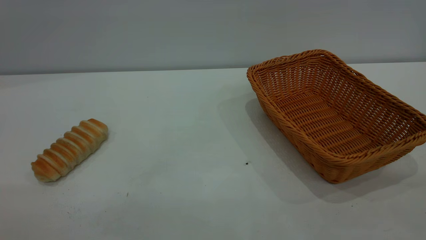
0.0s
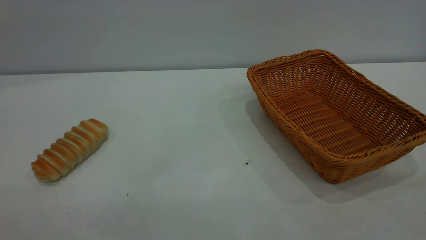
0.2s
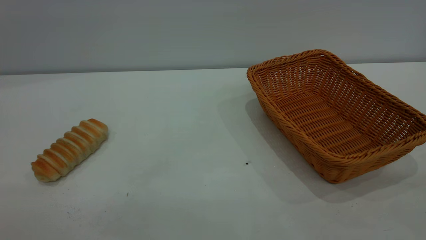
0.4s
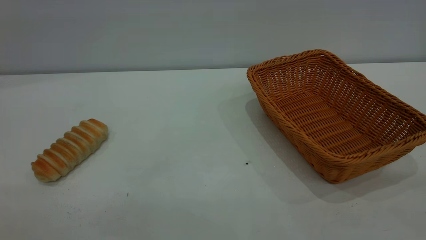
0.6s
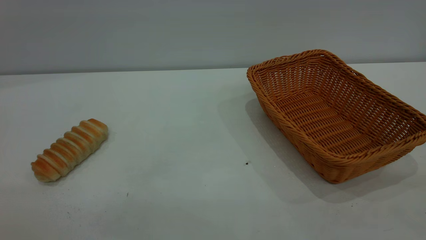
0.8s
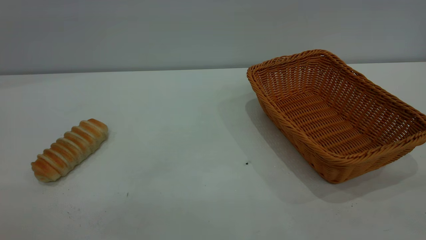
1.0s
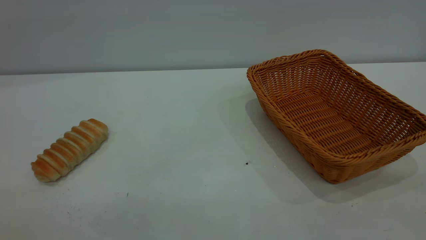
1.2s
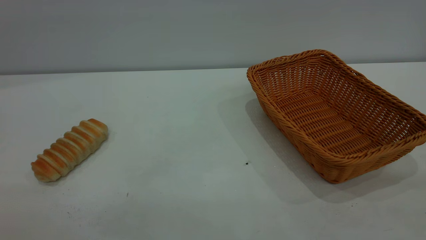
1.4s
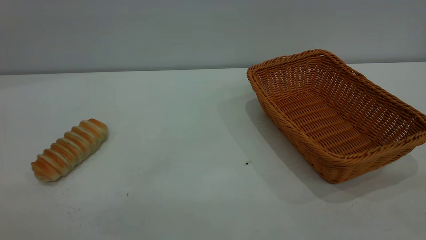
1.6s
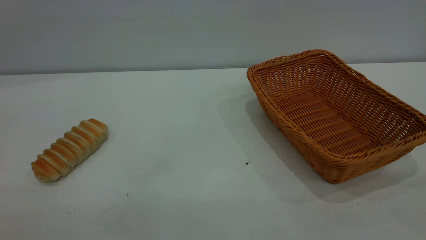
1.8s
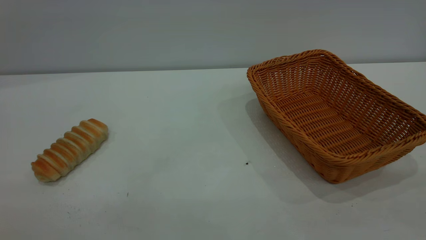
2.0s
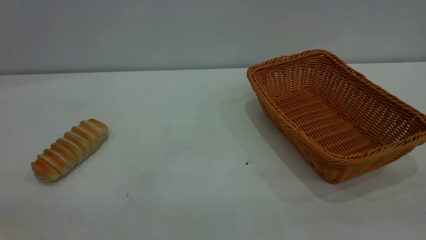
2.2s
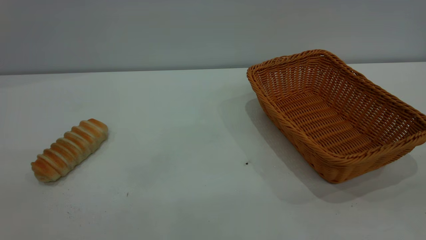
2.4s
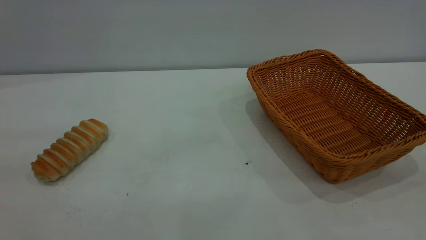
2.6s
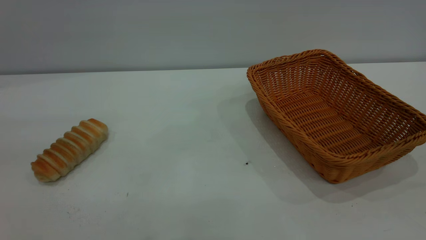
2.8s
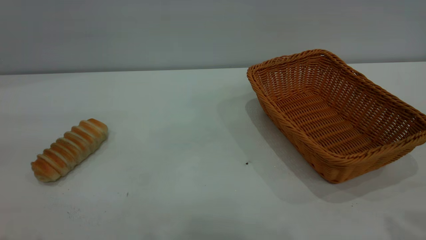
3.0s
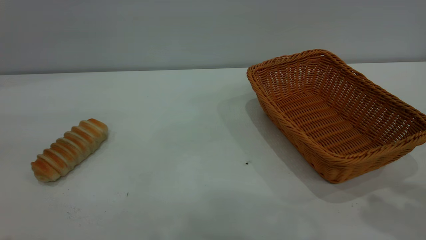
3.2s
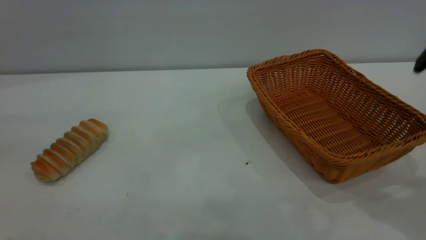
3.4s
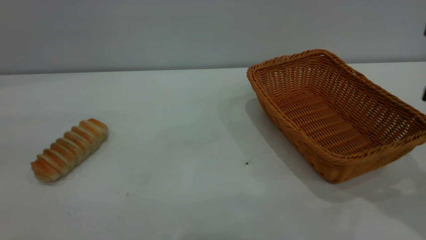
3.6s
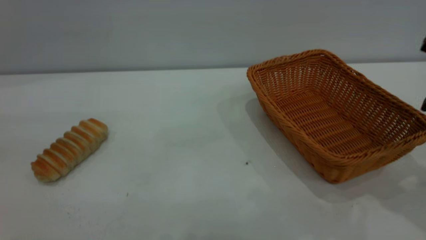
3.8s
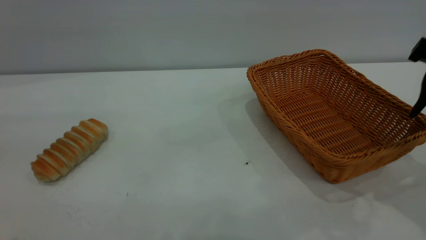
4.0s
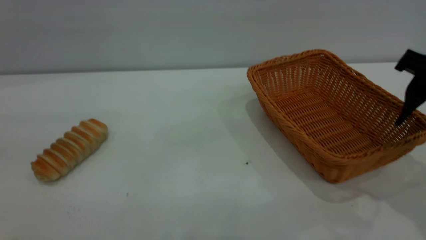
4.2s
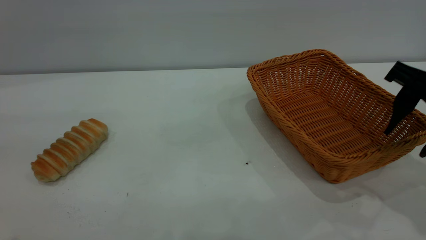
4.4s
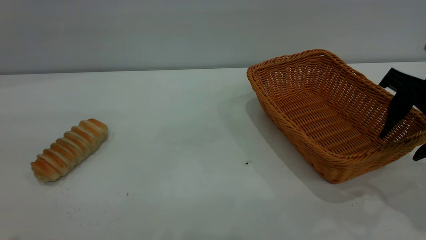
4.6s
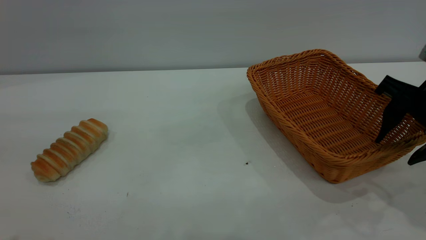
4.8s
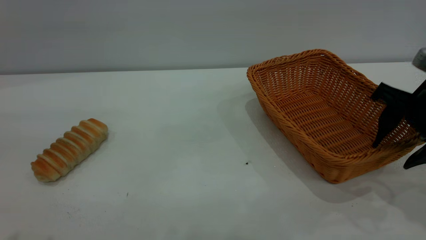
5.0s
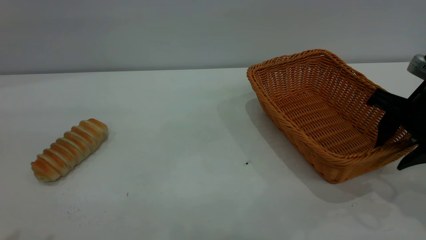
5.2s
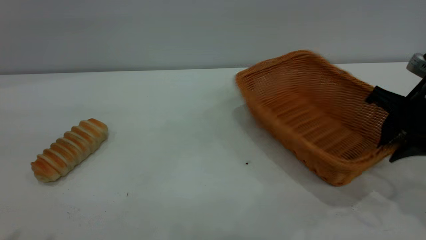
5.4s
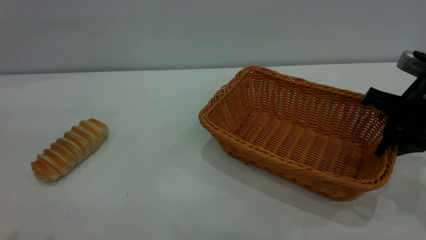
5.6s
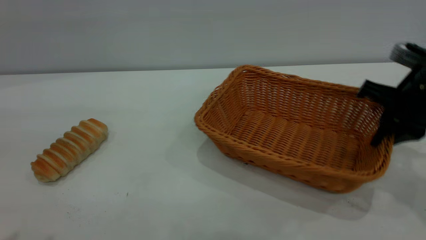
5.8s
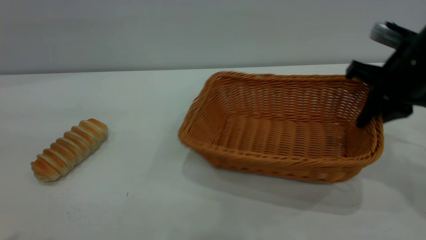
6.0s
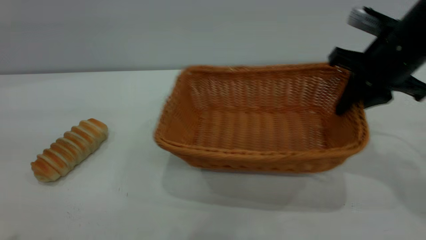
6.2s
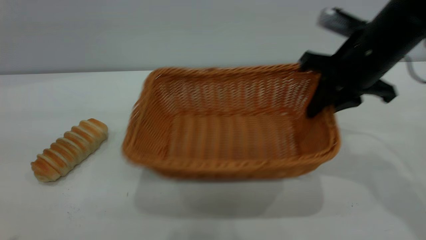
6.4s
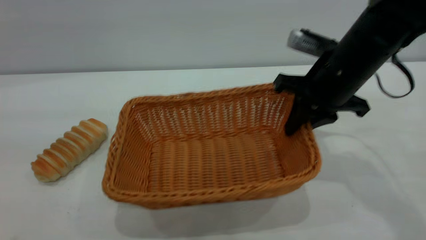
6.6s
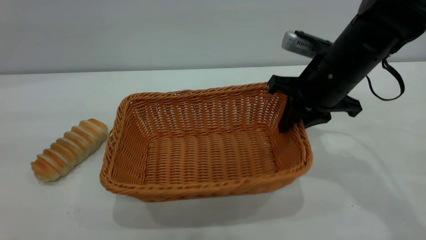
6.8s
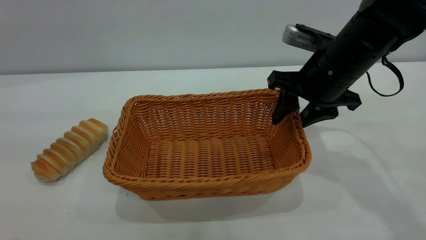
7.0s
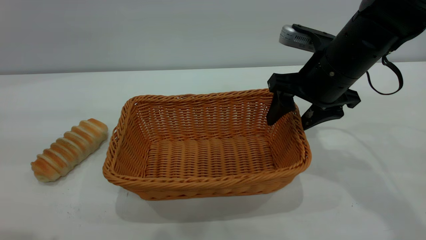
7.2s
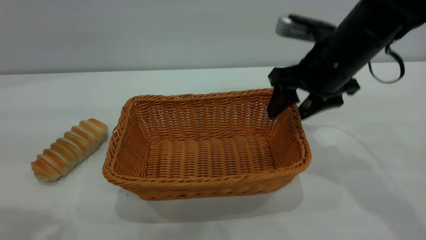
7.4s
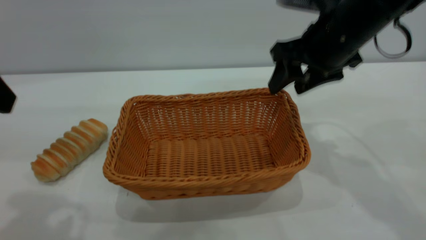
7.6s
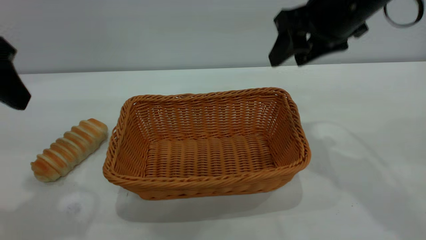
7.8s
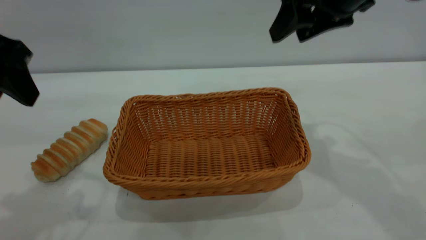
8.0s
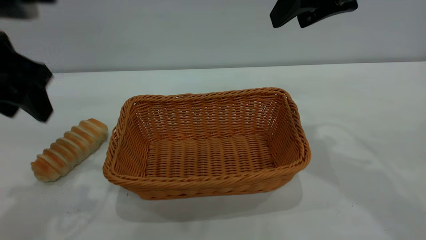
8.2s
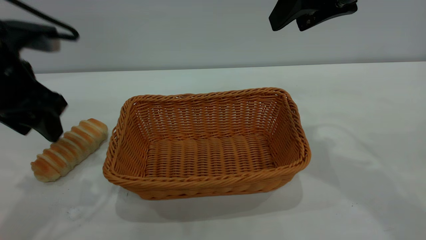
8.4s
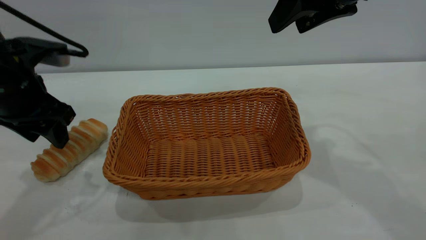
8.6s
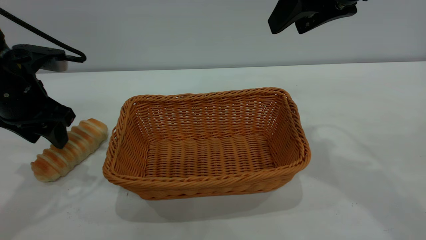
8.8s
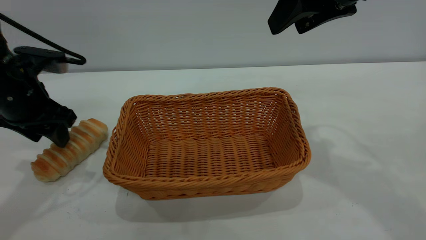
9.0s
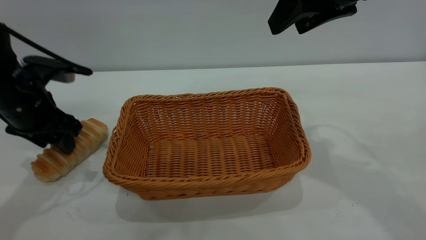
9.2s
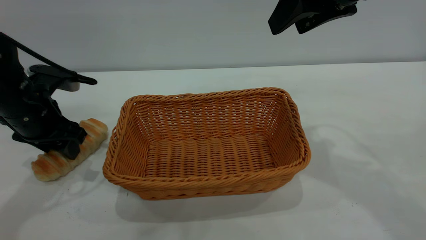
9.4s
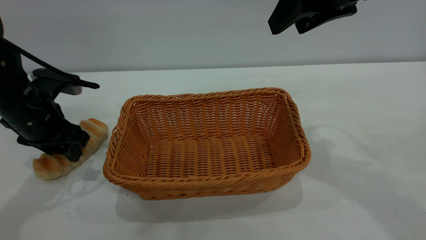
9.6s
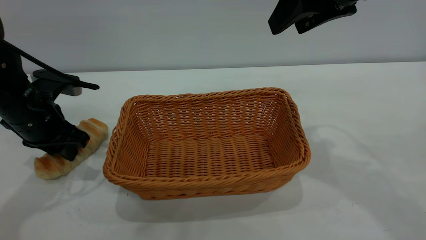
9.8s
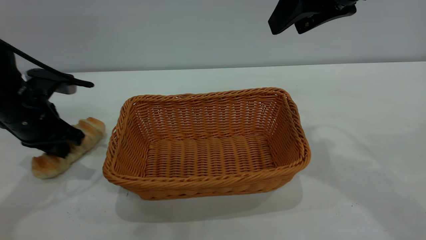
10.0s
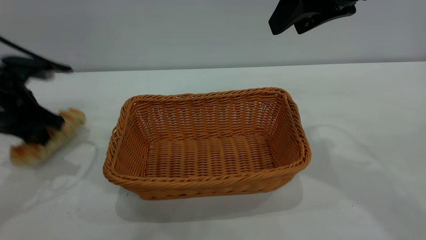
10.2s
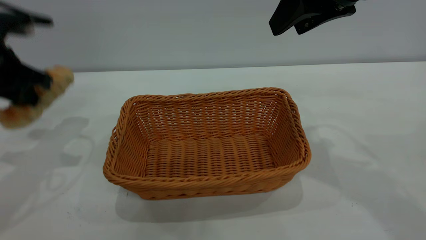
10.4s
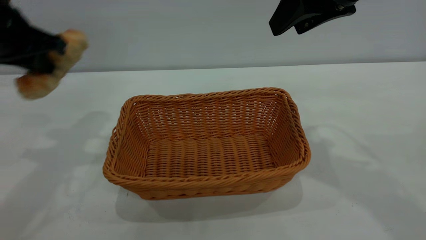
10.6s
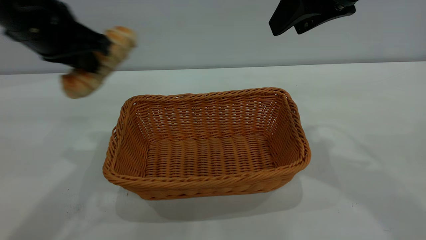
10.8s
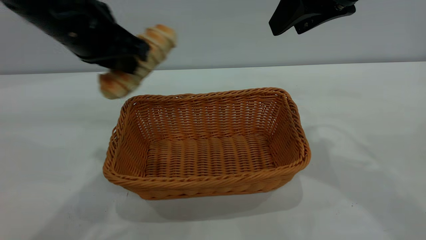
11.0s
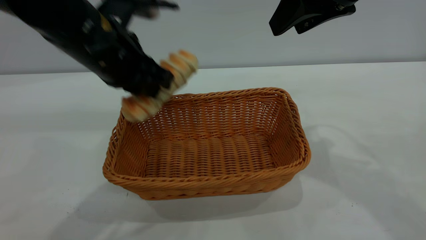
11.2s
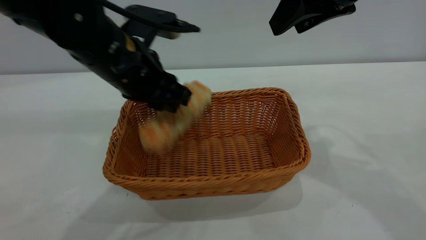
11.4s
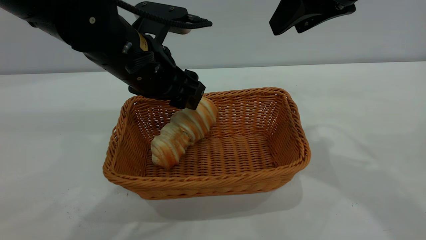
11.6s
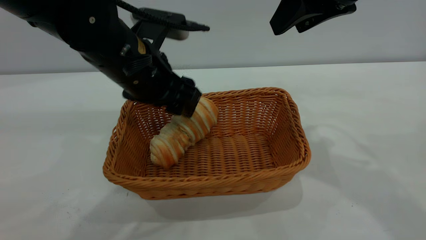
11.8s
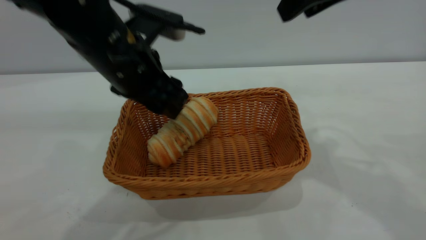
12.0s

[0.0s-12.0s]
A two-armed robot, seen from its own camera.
Task of the whole recording: One hand grasps the yellow basket and places it in the middle of the table, while the other hand picks up the long bread and puts it into the yellow basket.
Step, 0.0s to 7.6s: Move the basket to the center of view.
0.0s to 1.6s: The two grippers keep their place.
3.0s to 4.4s: The right gripper moves downward and forward, roughly 20 cm.
4.4s to 6.0s: The right gripper shifts approximately 5 cm forward, and closes its fingers.
6.0s to 7.6s: The right gripper is displaced to the left by approximately 10 cm, and opens up, while the left gripper is displaced forward and downward by about 10 cm.
7.6s to 9.0s: The left gripper goes about 20 cm downward and forward; the right gripper moves upward, some 10 cm.
9.0s to 10.4s: The left gripper moves upward, approximately 5 cm, and closes up.
10.4s to 12.0s: The left gripper heads to the right, covering some 20 cm, and opens its fingers.

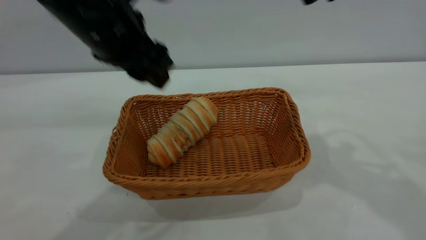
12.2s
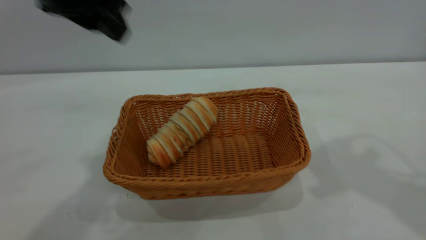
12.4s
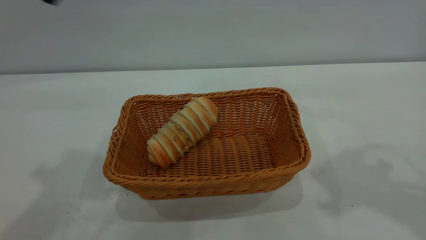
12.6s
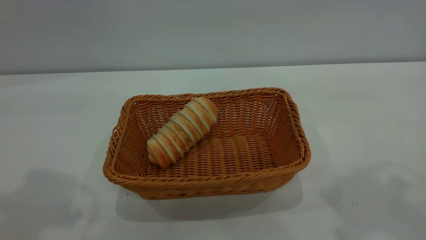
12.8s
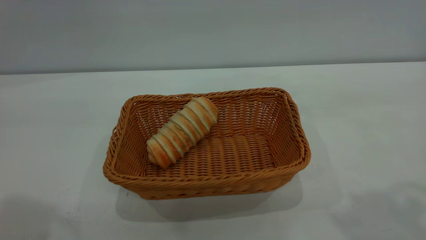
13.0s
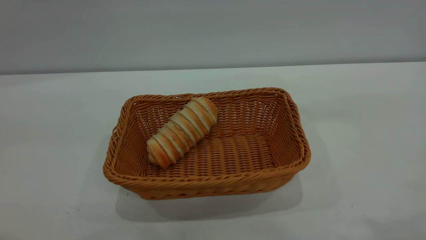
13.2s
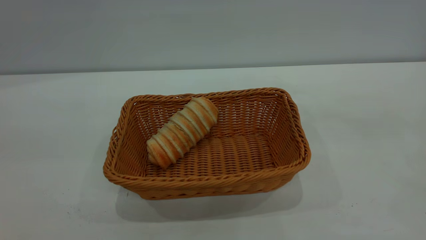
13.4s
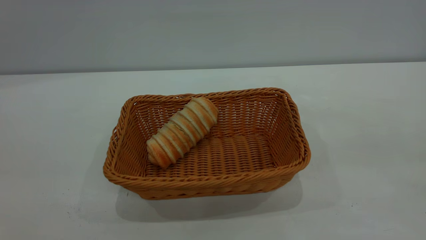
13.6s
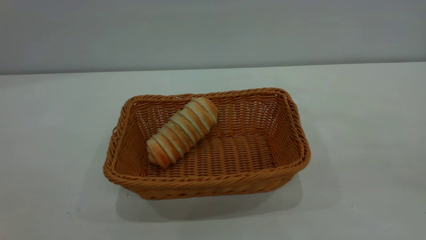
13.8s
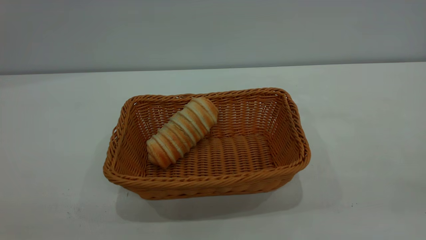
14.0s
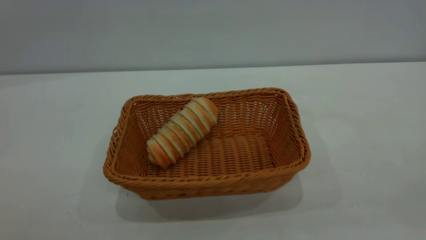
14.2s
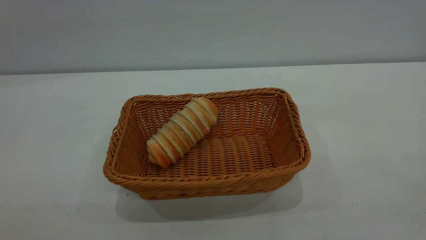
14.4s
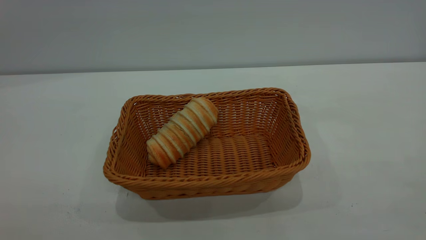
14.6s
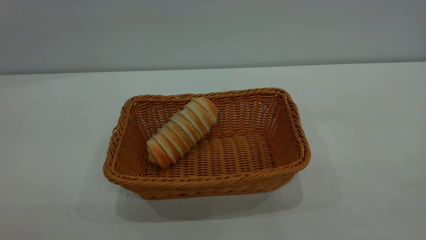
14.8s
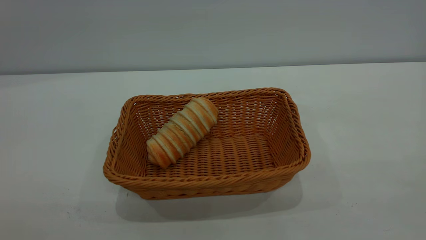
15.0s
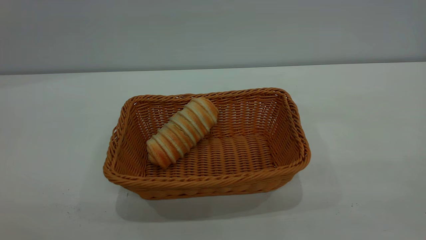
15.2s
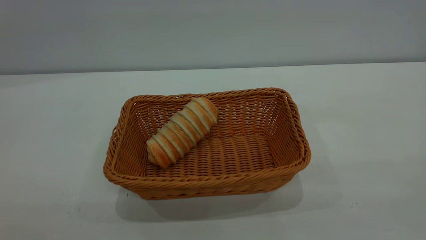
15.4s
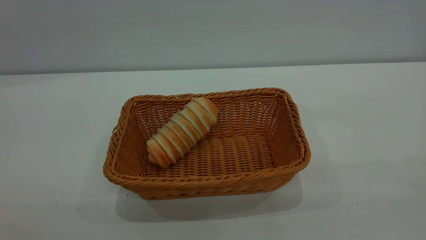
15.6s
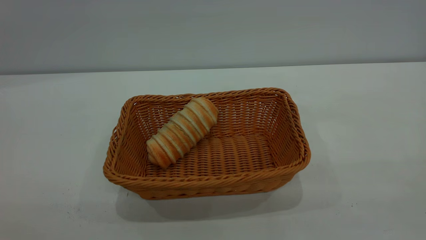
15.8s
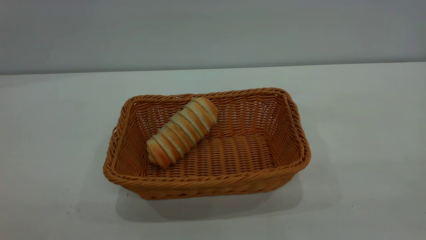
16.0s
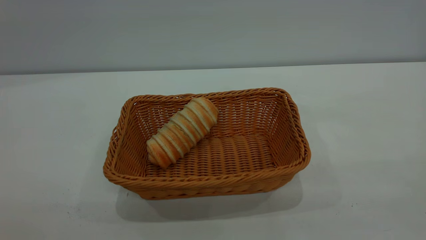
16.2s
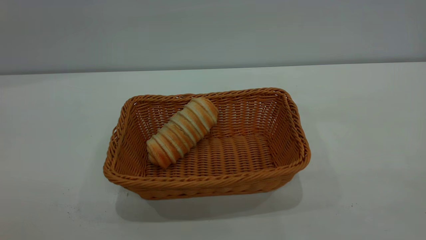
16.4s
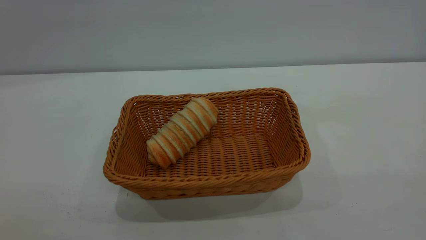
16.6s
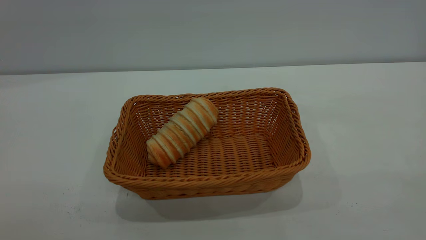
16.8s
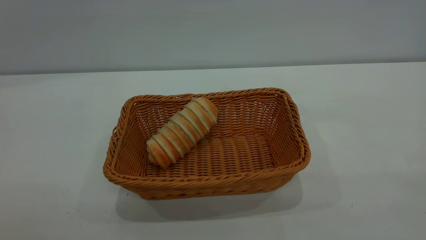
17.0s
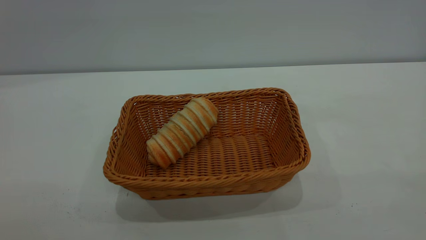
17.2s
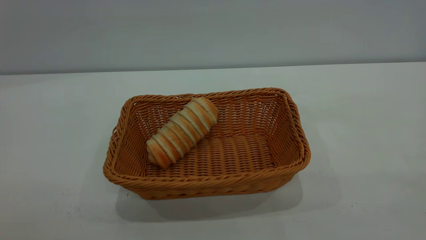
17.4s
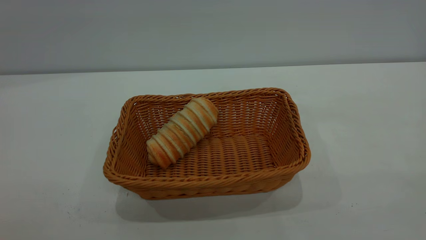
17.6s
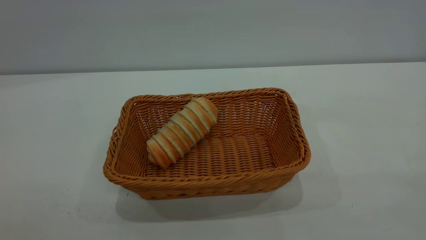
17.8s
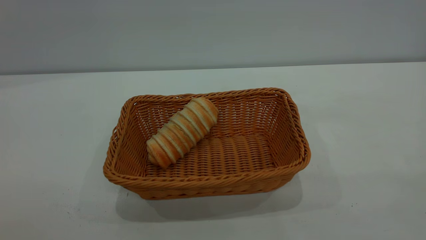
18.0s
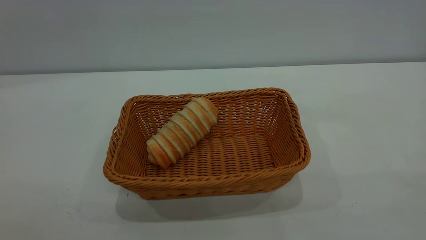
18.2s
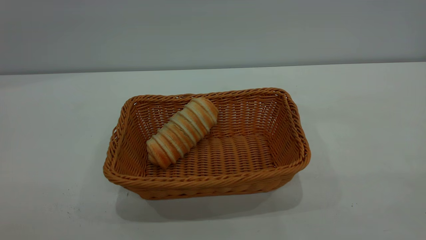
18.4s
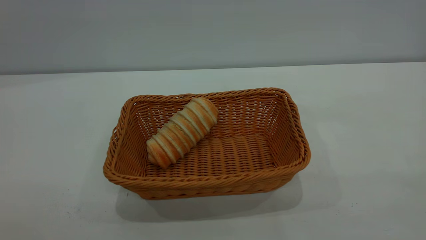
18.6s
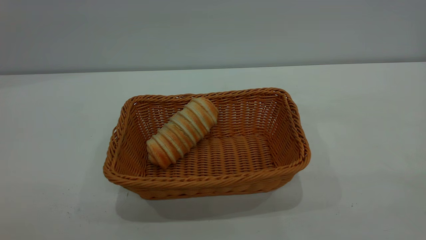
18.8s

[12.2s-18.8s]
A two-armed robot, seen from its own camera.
Task of the whole recording: One hand grasps the yellow basket and places it in the middle of the table, while the other hand picks up the long bread and puts it into the yellow basket.
12.2s to 13.8s: The left gripper shifts roughly 40 cm backward, upward and to the left. Meanwhile the right gripper shifts about 30 cm backward.
17.2s to 18.8s: The two grippers keep their place.
